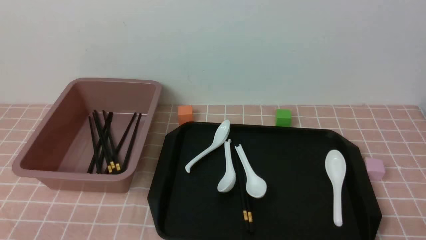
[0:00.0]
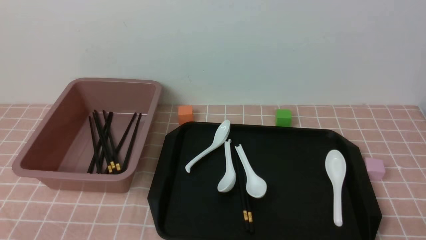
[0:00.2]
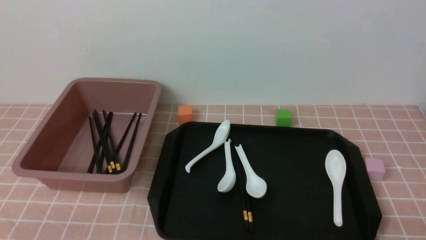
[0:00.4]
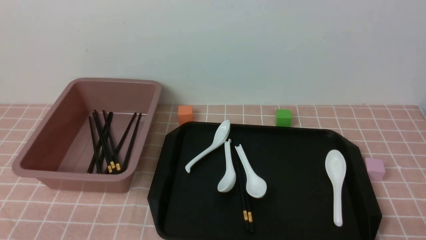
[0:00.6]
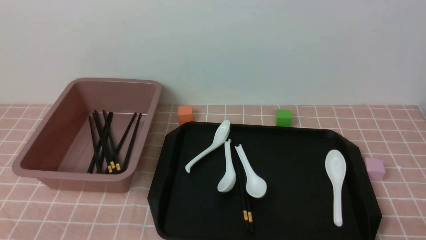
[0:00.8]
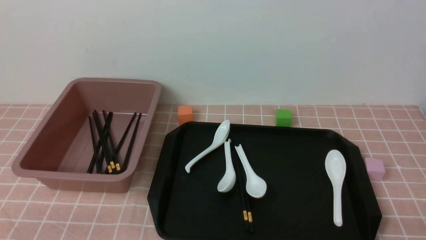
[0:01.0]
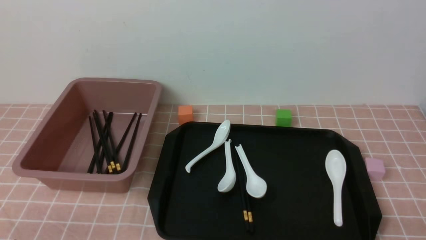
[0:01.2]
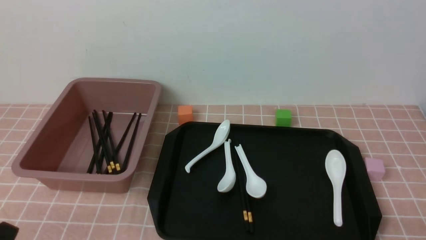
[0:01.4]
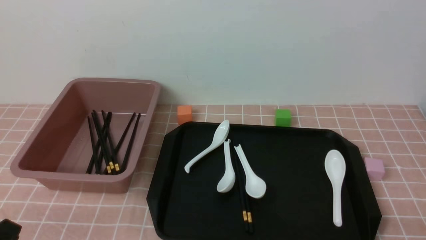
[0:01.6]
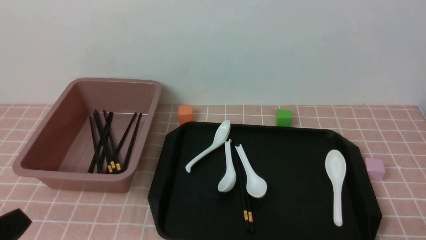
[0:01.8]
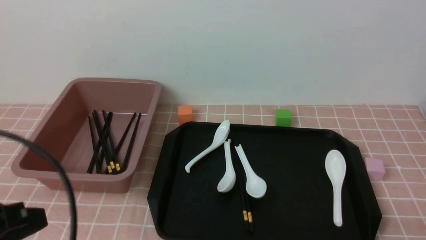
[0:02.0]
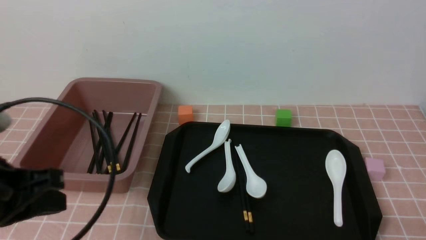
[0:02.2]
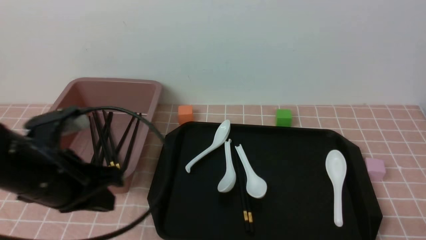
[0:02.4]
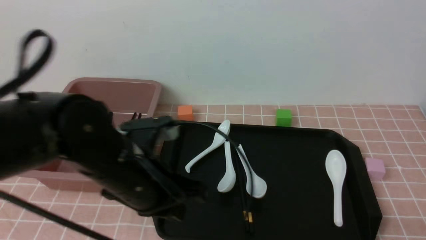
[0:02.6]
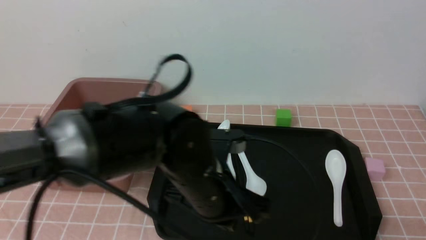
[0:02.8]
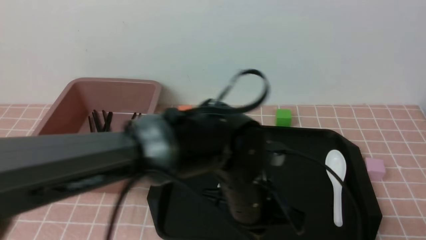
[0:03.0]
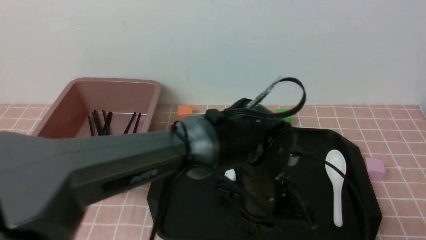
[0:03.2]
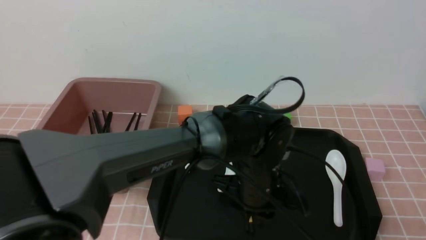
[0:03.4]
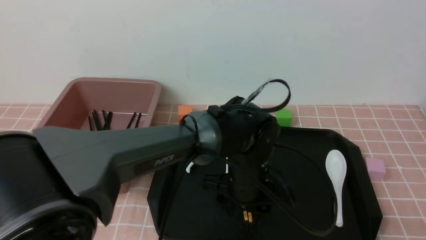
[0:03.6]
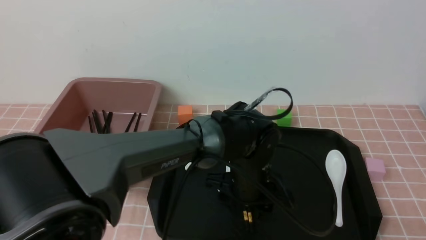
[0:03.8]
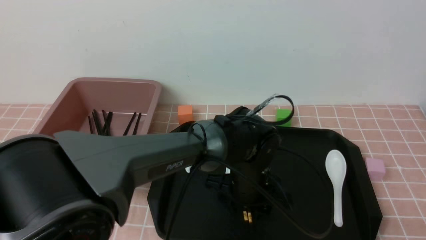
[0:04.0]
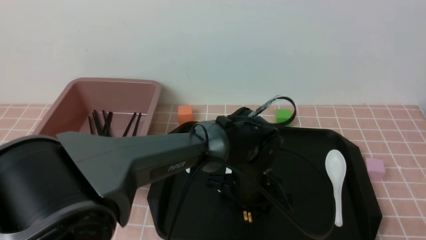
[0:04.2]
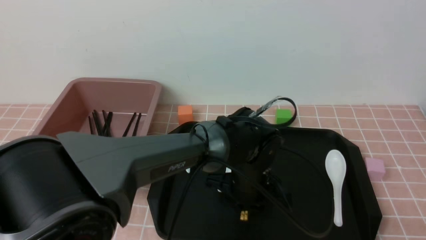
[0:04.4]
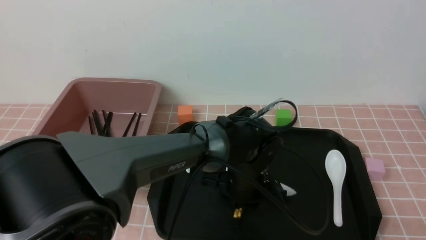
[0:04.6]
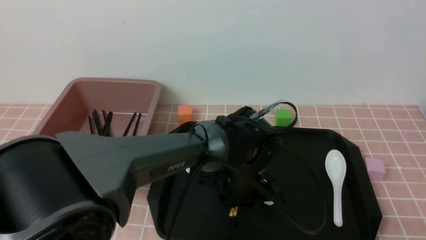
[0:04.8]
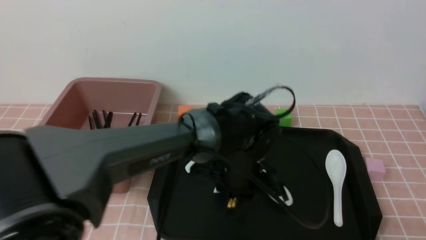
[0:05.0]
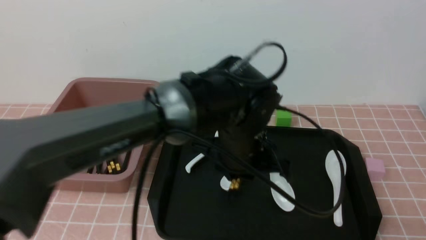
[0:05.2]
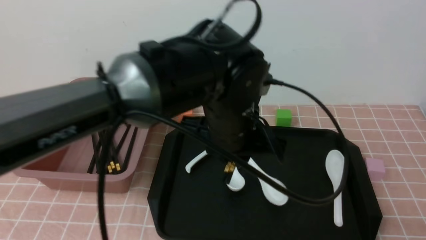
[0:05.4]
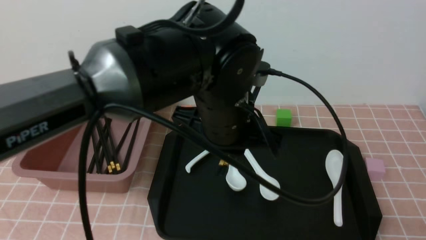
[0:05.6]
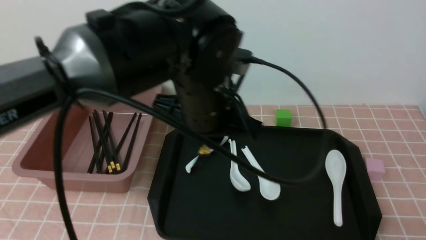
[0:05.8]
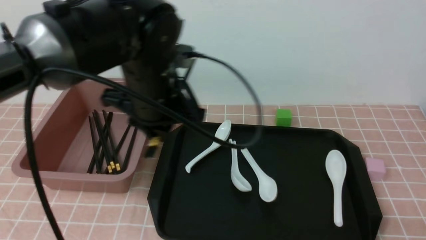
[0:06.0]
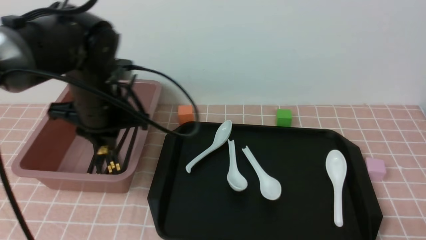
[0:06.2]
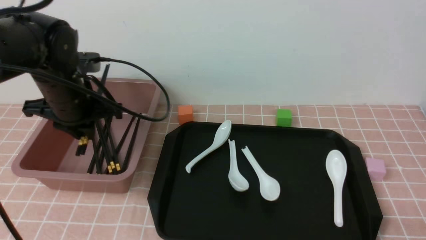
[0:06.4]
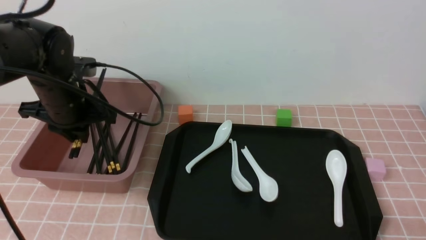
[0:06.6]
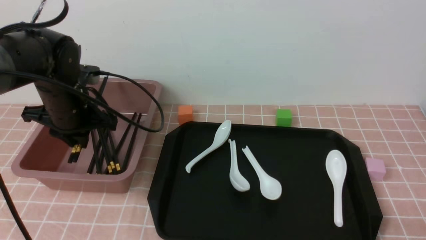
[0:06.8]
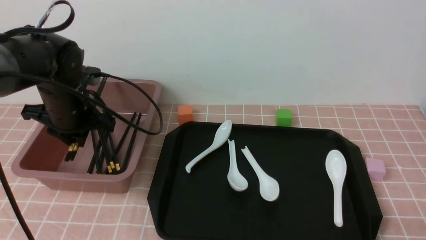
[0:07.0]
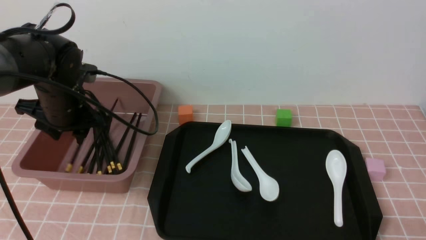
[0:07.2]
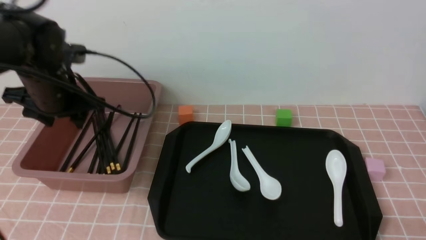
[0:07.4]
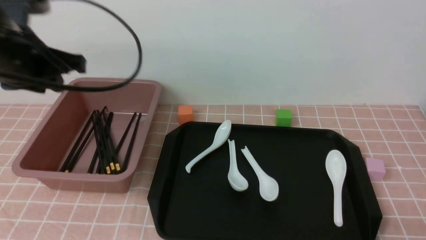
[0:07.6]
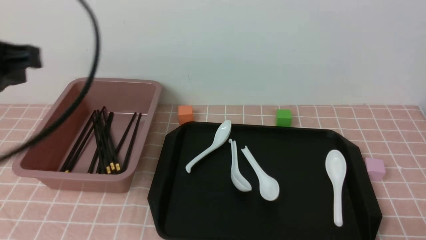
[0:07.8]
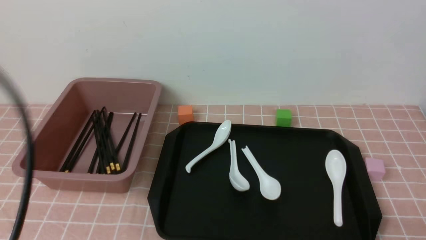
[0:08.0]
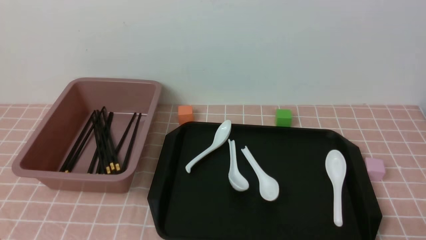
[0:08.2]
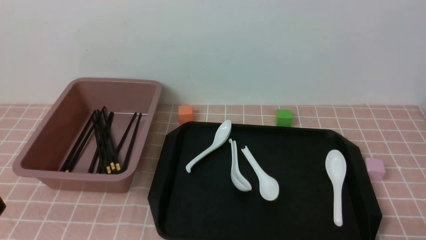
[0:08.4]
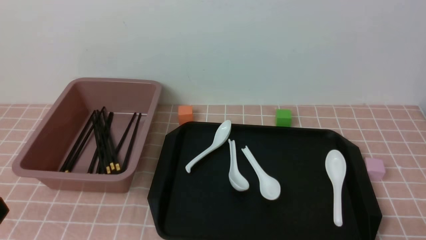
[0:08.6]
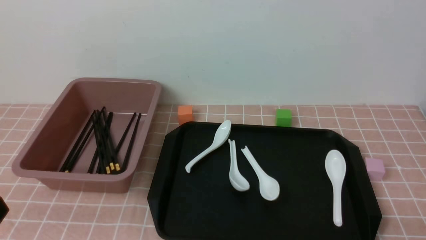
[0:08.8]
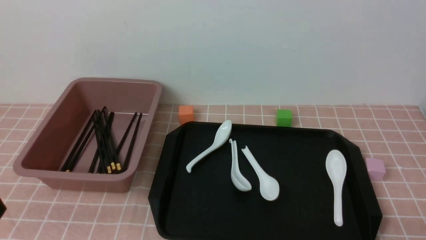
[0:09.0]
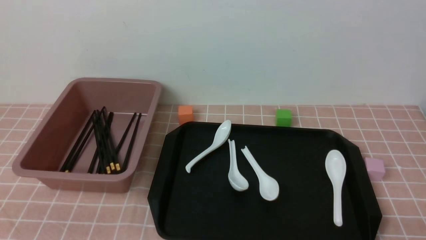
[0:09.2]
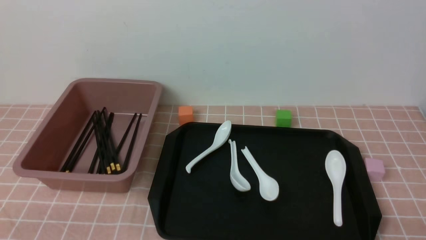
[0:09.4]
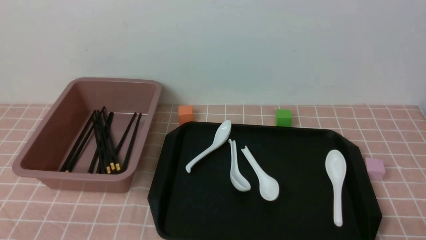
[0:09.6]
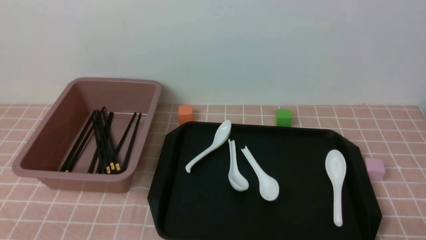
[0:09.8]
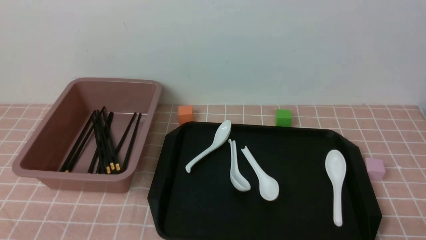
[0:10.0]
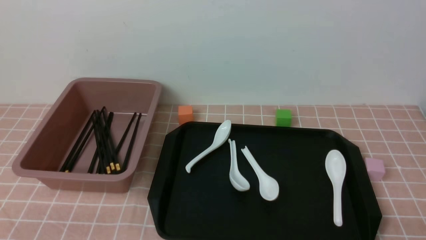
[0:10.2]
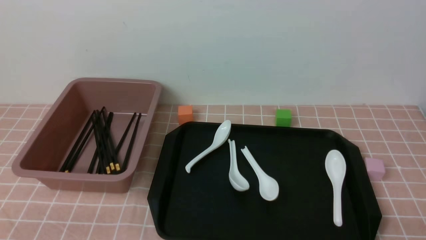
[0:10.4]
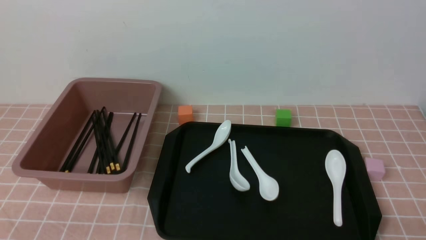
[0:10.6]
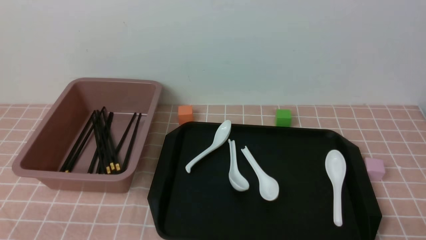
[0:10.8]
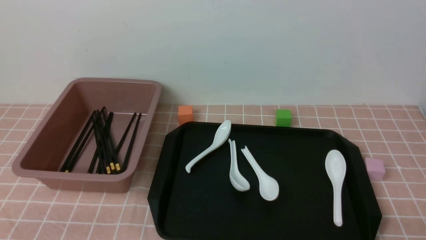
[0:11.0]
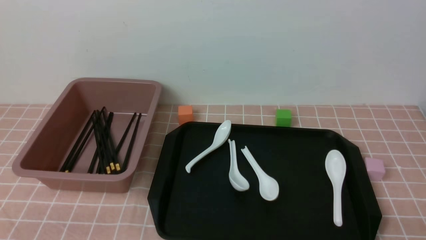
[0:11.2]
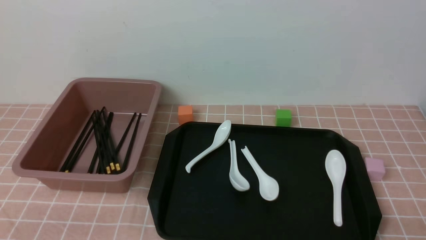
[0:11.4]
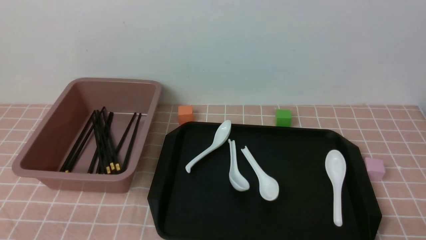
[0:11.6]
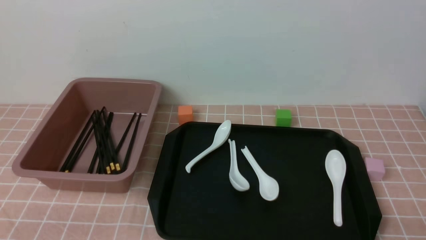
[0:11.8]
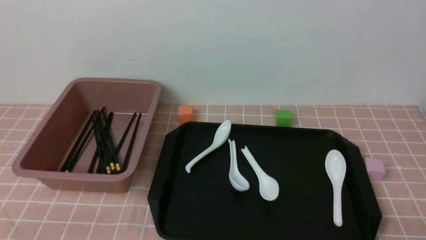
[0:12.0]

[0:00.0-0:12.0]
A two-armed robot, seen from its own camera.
Step, 0:00.0 to 0:05.2: use the left arm to grab a pair of chopsticks.
Step, 0:05.4 to 0:07.4: use the left arm to put the chopsticks into the lunch box.
0:01.6 to 0:03.0: The left gripper is displaced to the right and forward by some 35 cm, and closes its fingers.
0:03.0 to 0:04.4: The left gripper moves downward and forward, approximately 10 cm, and opens its fingers.
0:04.4 to 0:06.0: The left gripper travels upward and to the left by about 20 cm.
0:06.0 to 0:07.6: The left gripper goes some 15 cm to the left.
0:07.6 to 0:09.0: The left gripper travels backward by roughly 25 cm, and closes up.
0:09.0 to 0:10.4: The left gripper travels downward by some 10 cm.
0:10.4 to 0:12.0: The two grippers keep their place.

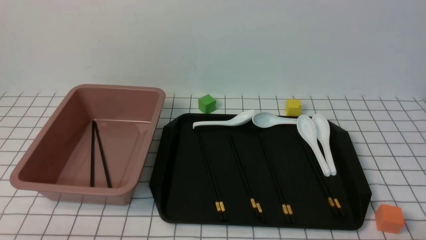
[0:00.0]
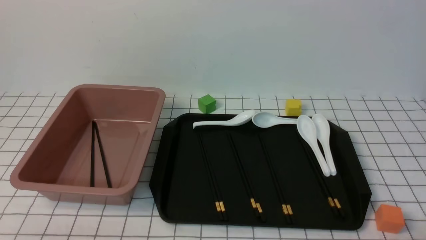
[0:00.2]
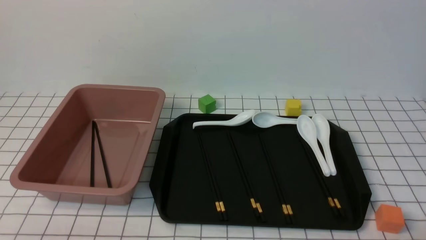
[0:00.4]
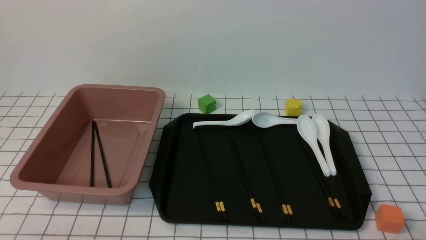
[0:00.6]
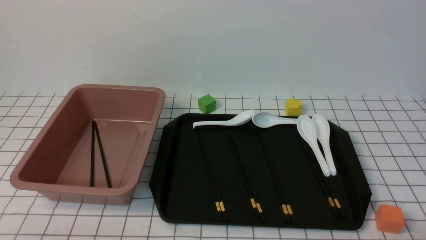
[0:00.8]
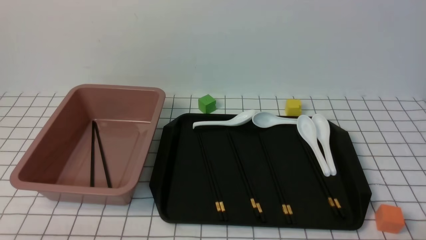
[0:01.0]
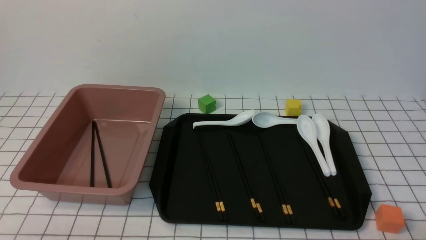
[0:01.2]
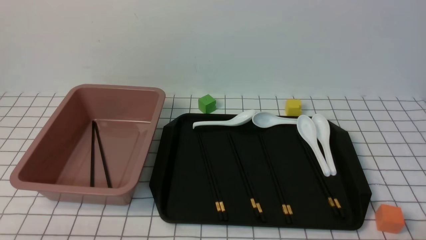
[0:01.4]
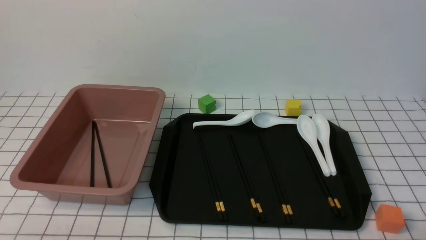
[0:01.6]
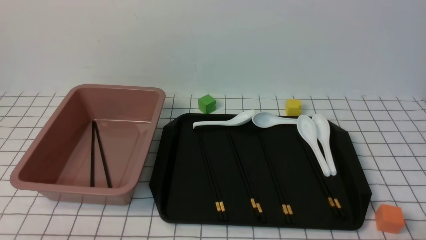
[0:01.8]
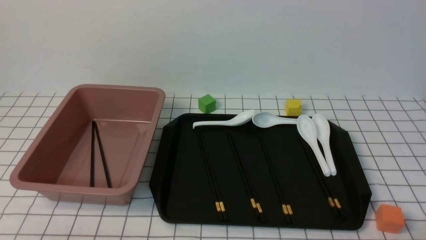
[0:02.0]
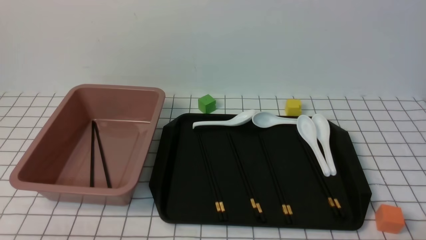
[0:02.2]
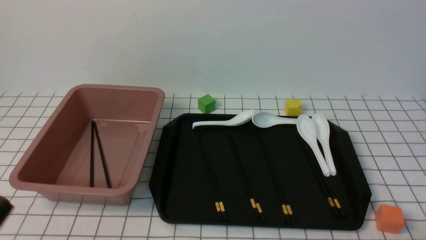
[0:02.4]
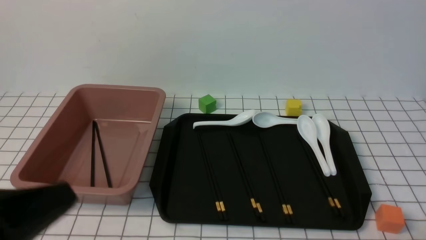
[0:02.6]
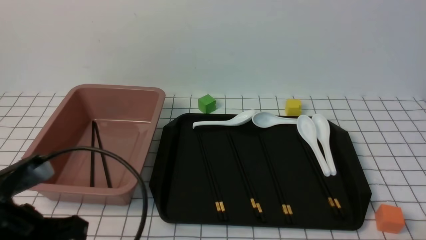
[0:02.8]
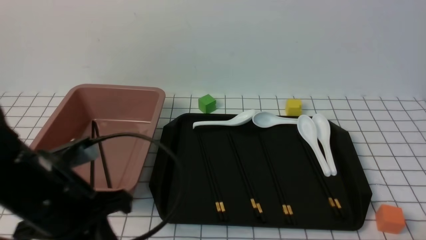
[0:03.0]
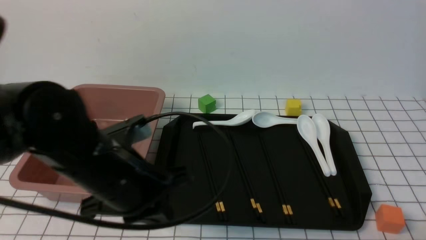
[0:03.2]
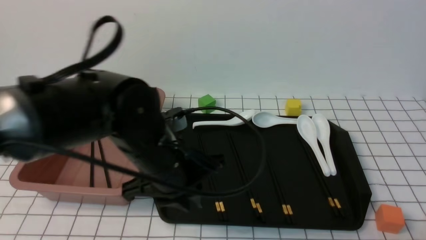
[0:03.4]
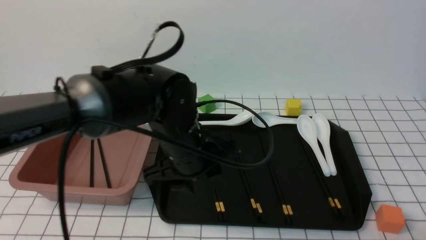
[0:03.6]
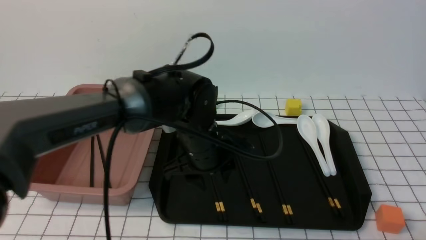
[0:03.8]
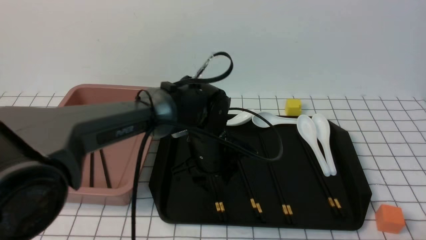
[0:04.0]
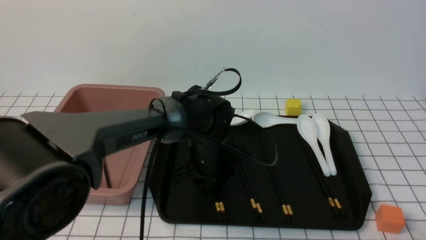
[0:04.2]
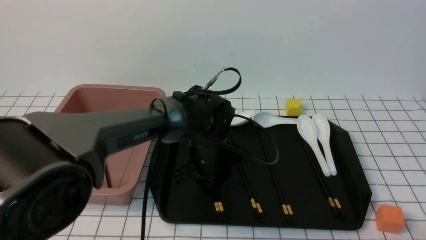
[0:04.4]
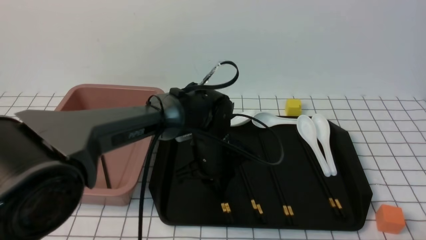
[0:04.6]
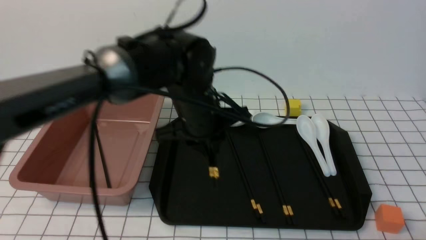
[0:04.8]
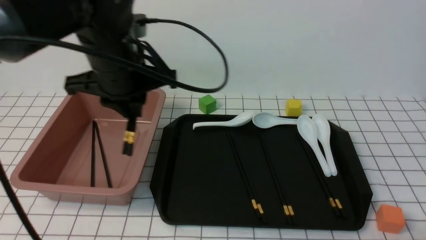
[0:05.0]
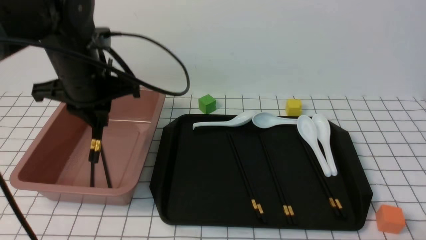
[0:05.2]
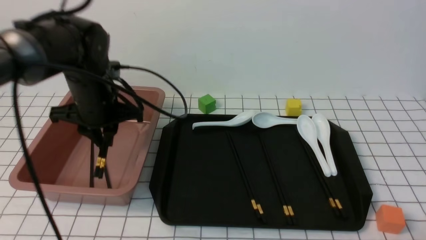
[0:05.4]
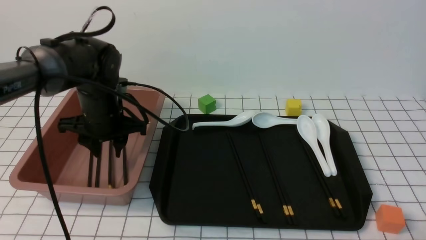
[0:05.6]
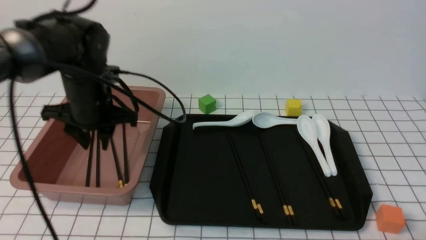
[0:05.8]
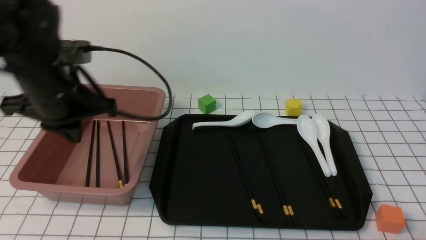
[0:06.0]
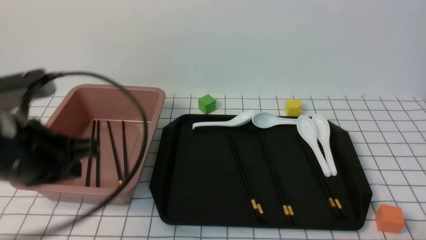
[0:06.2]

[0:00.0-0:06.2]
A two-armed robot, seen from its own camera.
Step, 0:00.0 to 0:04.6: use the left arm to grab a pair of chopsticks.
Step, 0:04.8 to 0:05.8: use the left arm to put the chopsticks into the lunch box.
0:01.6 to 0:03.2: The left gripper heads forward, to the right and upward, covering about 20 cm.
0:03.2 to 0:04.6: The left gripper moves forward, to the right and downward, about 25 cm, and opens its fingers.
0:04.6 to 0:06.2: The left gripper shifts about 25 cm to the left, upward and backward, and closes its fingers.
